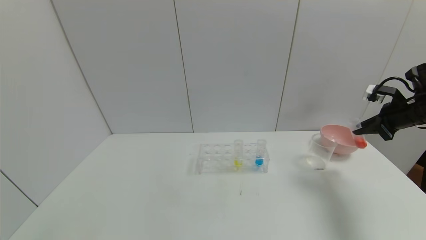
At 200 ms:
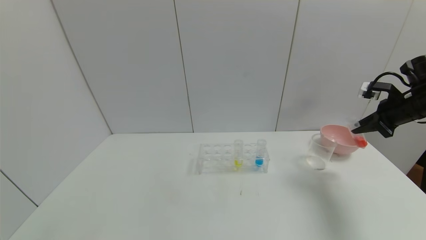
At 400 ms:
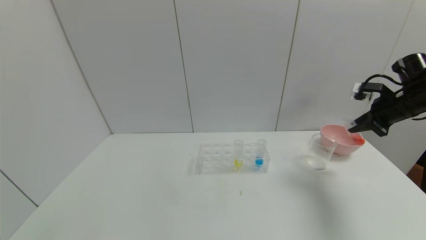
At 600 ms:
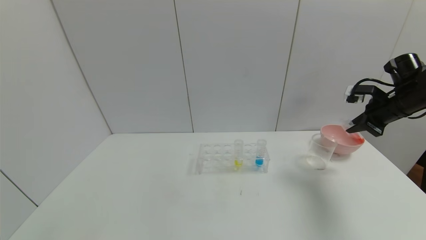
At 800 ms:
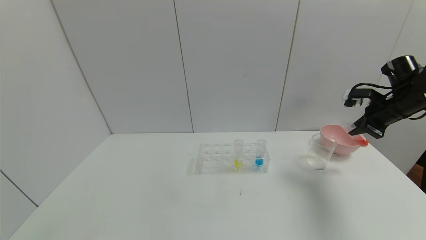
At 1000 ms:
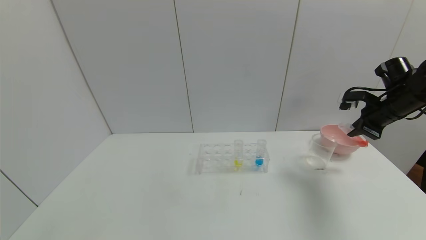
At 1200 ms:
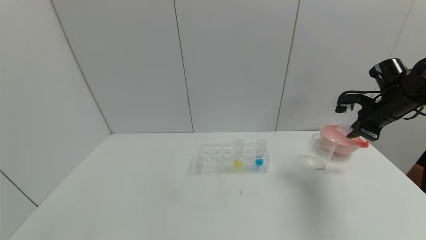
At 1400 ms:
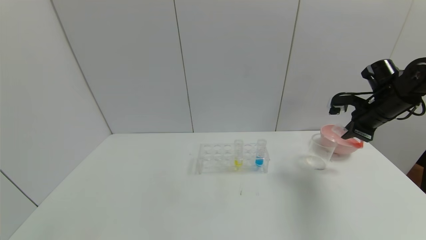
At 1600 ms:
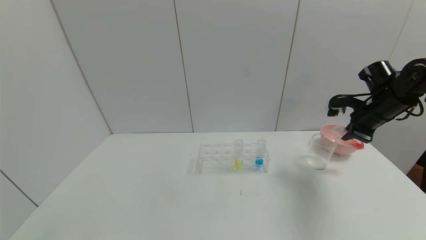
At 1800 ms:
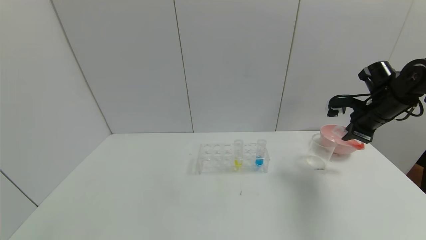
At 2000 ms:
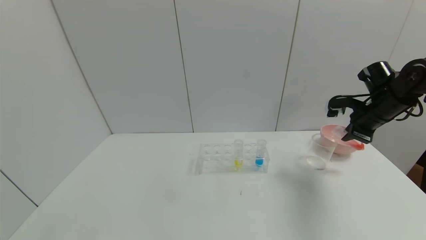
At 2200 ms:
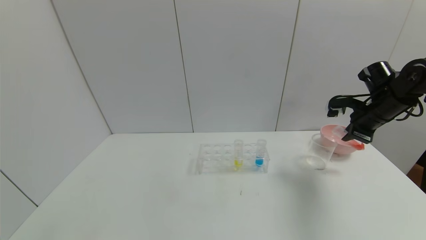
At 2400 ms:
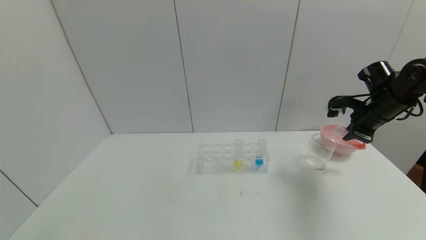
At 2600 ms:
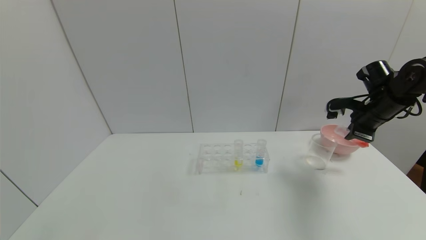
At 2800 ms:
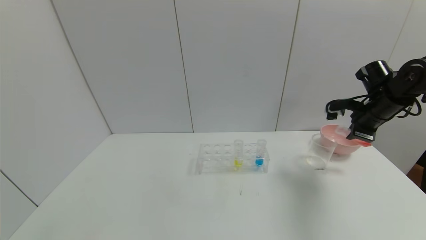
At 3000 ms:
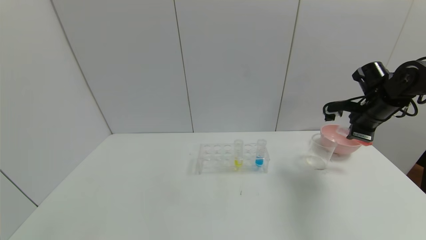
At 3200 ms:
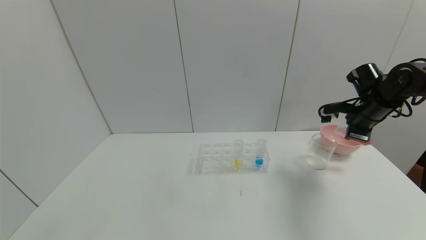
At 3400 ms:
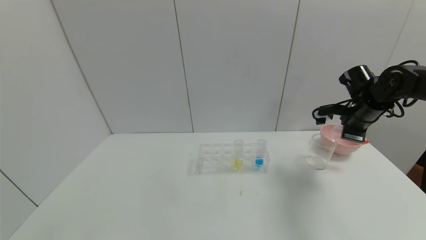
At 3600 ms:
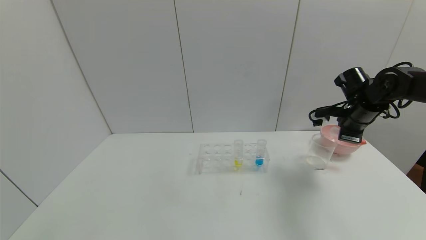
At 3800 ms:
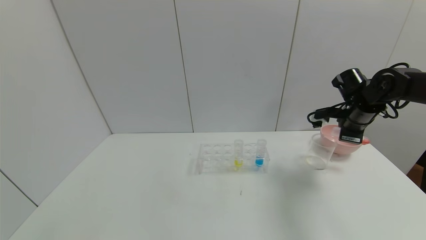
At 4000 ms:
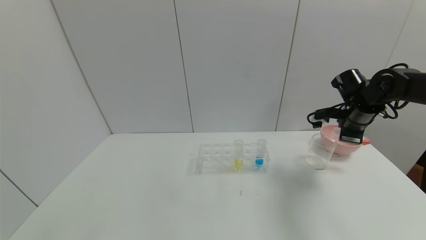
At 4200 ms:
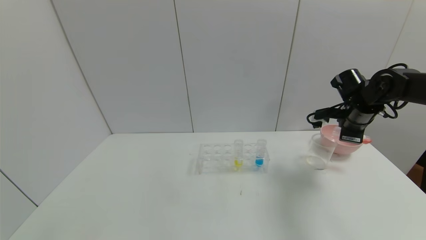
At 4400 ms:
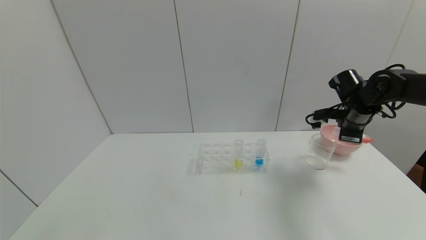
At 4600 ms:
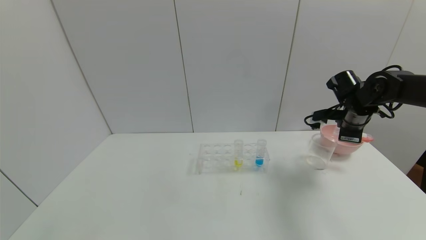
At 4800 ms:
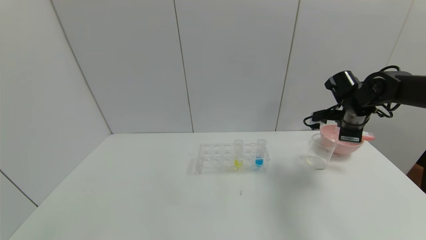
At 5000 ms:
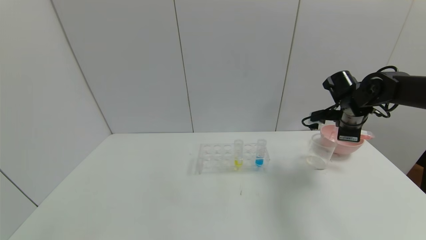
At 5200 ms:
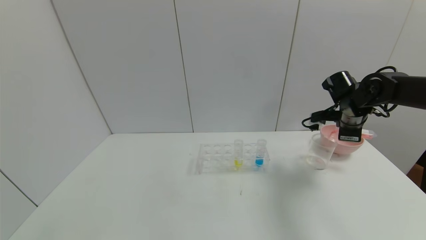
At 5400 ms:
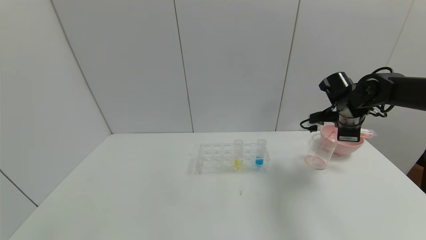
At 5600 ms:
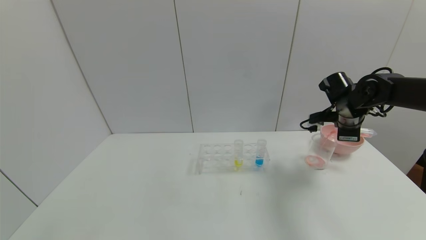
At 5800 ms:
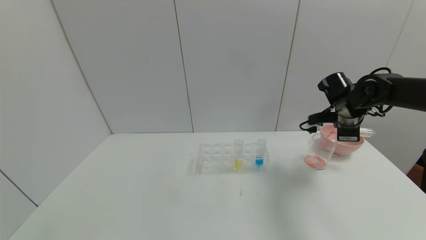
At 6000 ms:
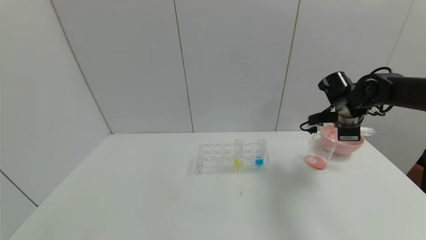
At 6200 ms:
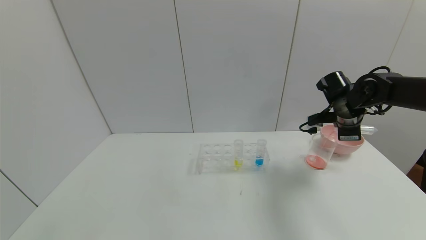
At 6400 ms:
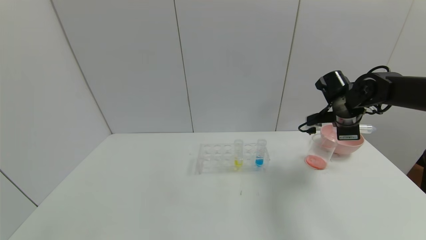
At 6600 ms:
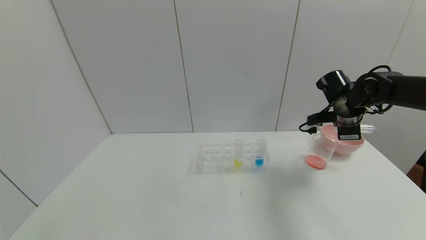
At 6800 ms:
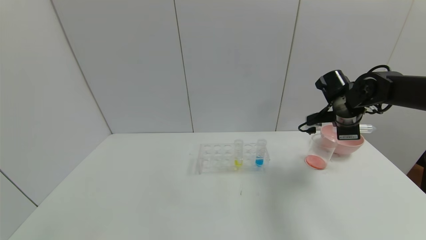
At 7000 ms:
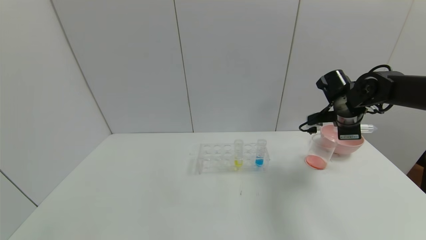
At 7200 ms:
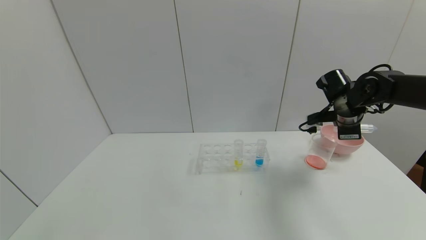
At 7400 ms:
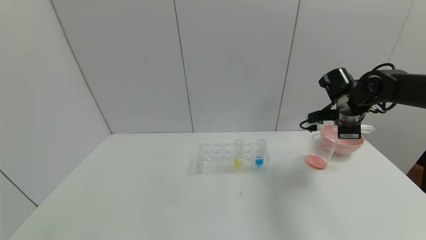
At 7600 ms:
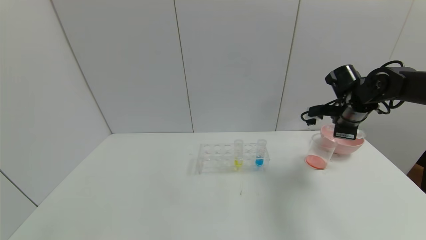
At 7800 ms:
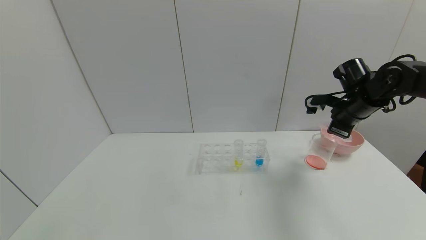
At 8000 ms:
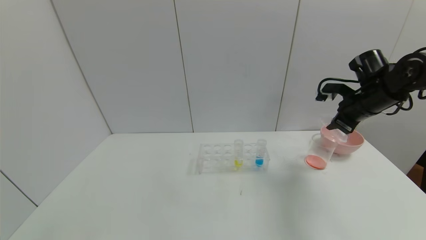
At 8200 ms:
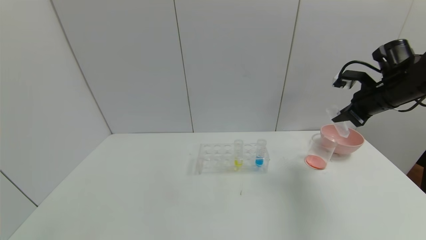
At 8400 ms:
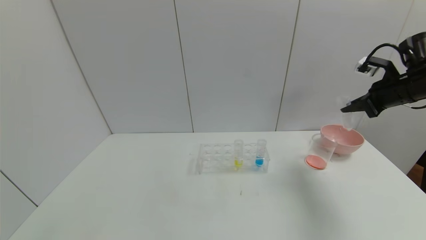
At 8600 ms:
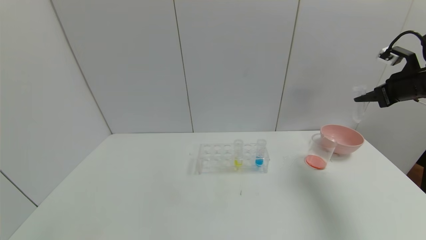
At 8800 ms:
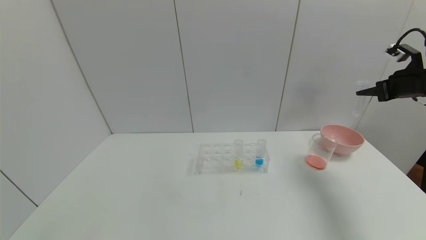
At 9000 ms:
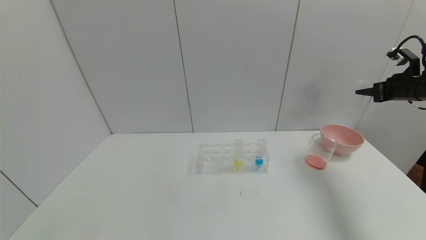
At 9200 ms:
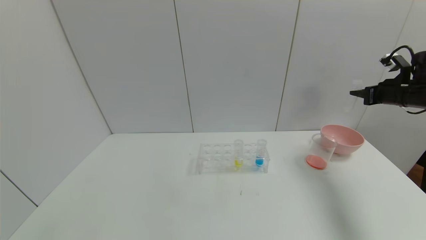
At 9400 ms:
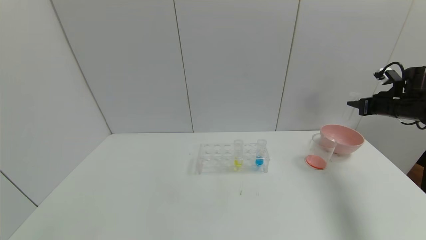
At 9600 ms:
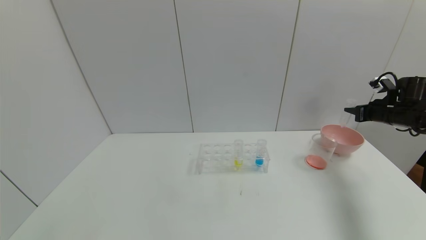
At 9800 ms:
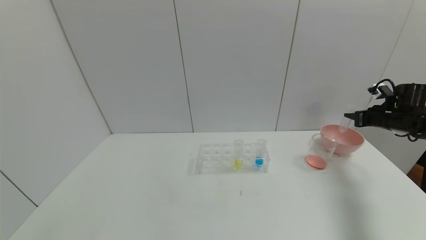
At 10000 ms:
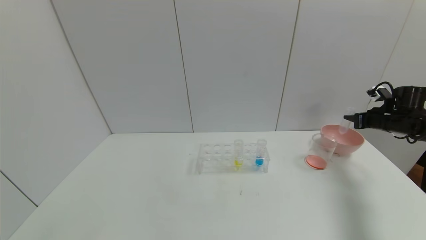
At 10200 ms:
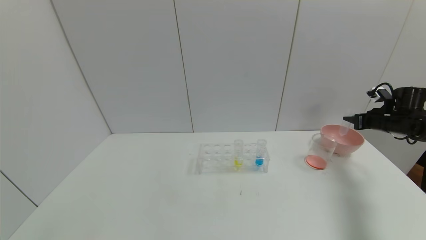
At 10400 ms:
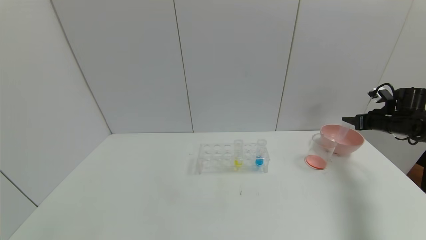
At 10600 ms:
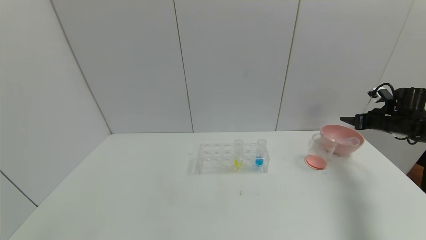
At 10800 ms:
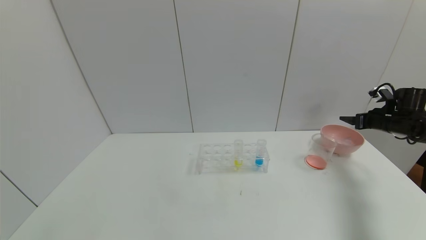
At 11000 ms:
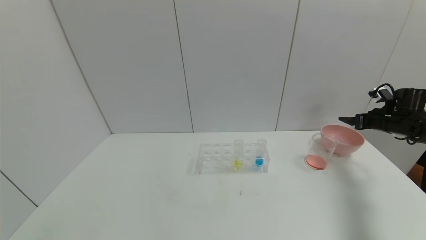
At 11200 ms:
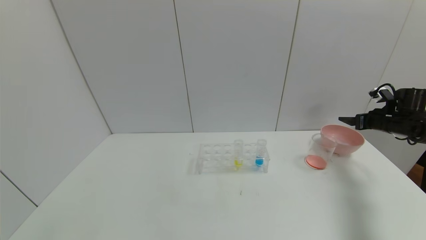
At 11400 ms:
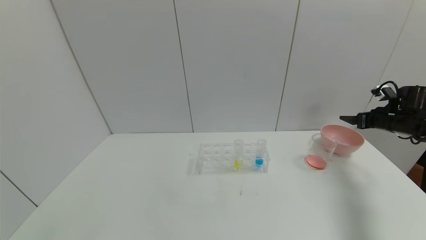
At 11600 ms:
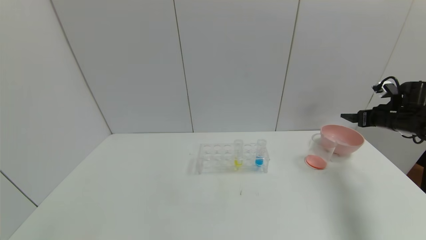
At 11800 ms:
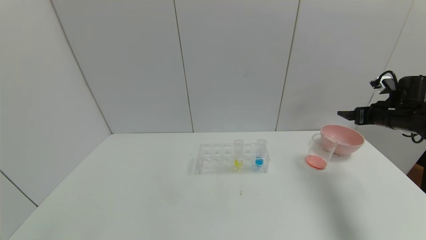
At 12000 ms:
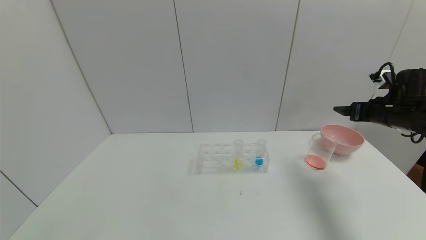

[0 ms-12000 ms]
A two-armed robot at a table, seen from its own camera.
Task of the whole recording: pick up the test tube with yellow pigment and the test tube with red pigment by grippers and pour them into the beaker.
Step, 0 ms to 7400 ms: Pour the red reagent into the graduated cylinder with the right gripper.
Step, 7600 ms to 11000 ms: Place the test tube into the bowl with the right gripper.
0 ms to 1600 ms: The right gripper shifts roughly 10 cm to the left.
1600 ms to 3000 ms: There are only small adjustments of the grippers.
3000 ms to 4400 ms: The grippers stay close to where they were, moving slightly.
4400 ms to 7600 ms: There are only small adjustments of the grippers.
7600 ms to 9000 ms: The right gripper goes some 15 cm to the right.
9000 ms to 10400 ms: The right gripper is displaced downward by some 10 cm, and opens its fingers.
10400 ms to 12000 ms: The right gripper is displaced to the left, backward and upward by approximately 15 cm, and opens up.

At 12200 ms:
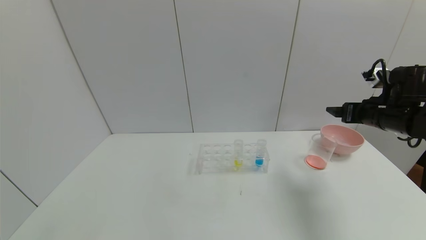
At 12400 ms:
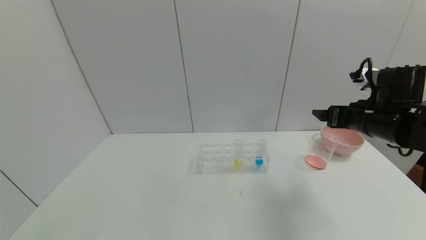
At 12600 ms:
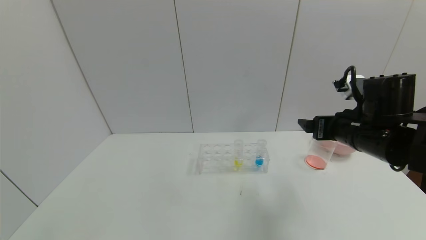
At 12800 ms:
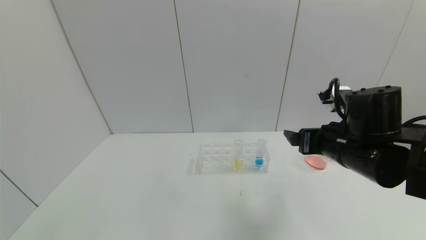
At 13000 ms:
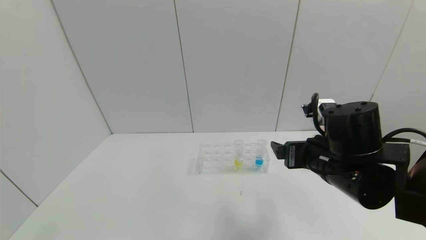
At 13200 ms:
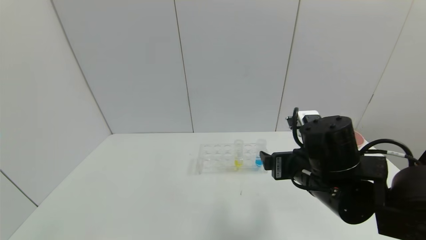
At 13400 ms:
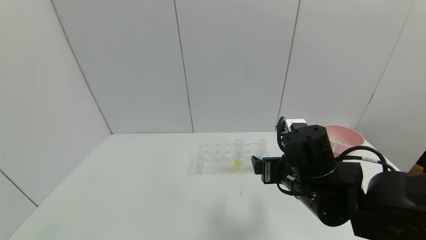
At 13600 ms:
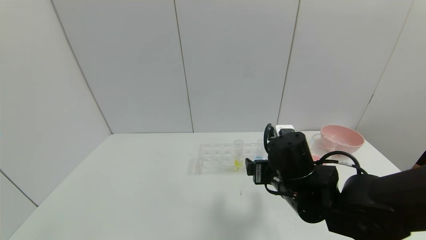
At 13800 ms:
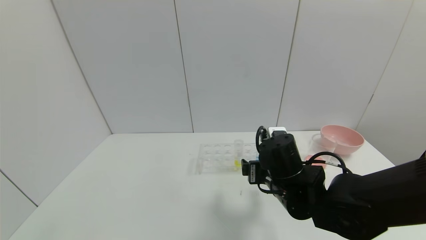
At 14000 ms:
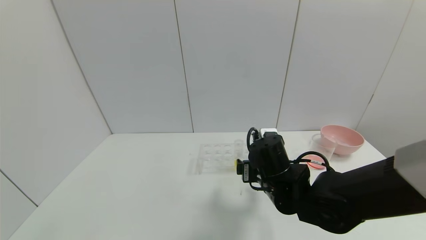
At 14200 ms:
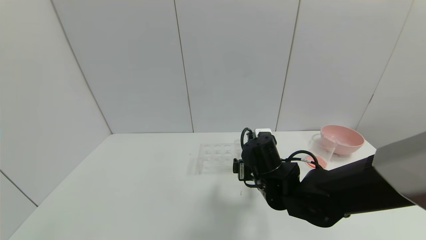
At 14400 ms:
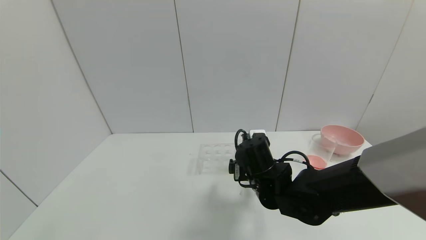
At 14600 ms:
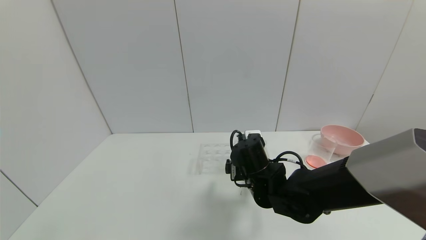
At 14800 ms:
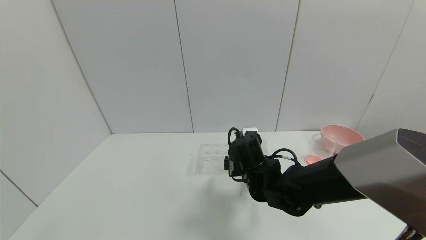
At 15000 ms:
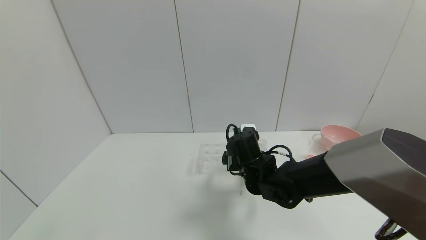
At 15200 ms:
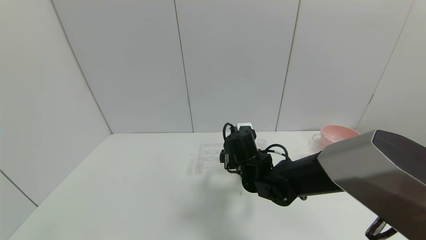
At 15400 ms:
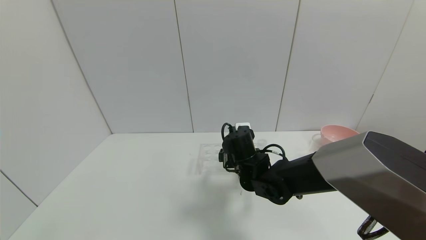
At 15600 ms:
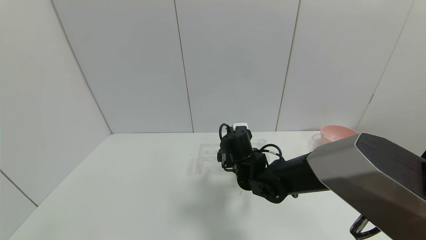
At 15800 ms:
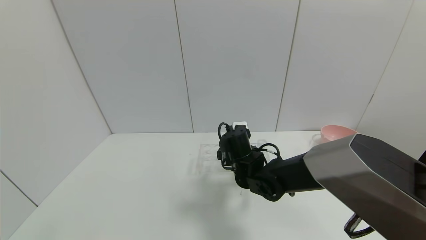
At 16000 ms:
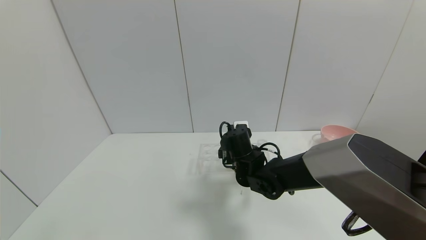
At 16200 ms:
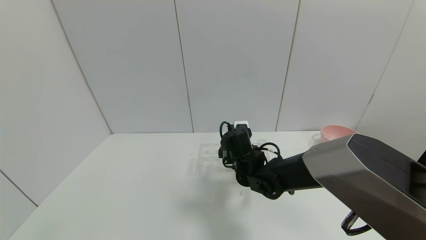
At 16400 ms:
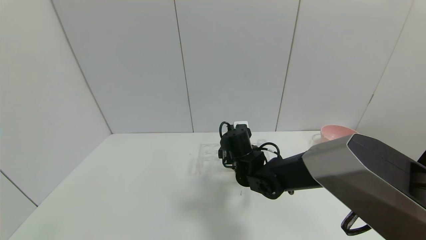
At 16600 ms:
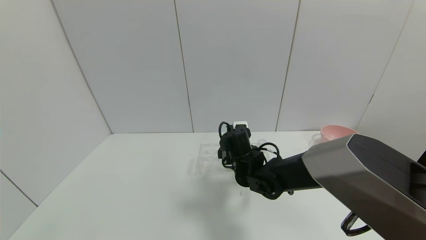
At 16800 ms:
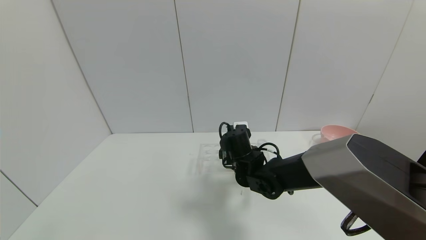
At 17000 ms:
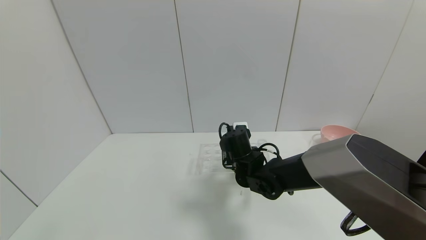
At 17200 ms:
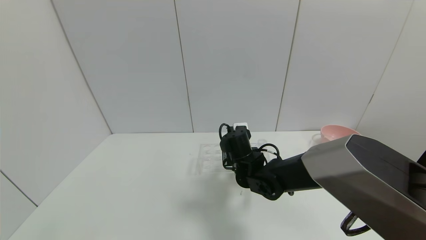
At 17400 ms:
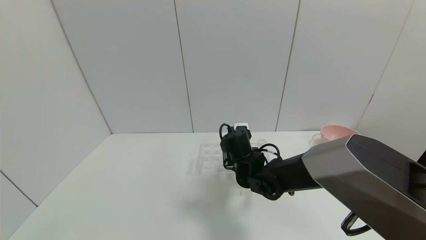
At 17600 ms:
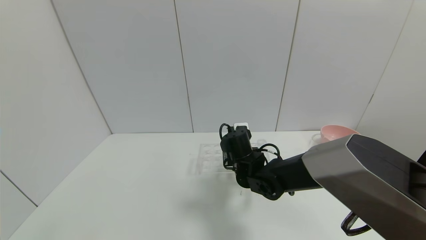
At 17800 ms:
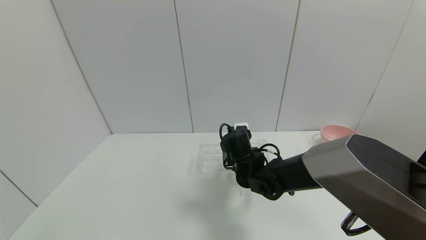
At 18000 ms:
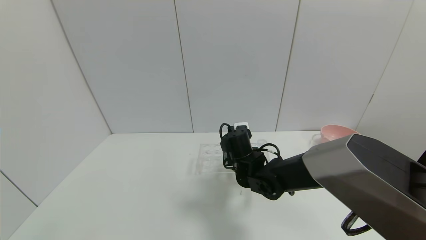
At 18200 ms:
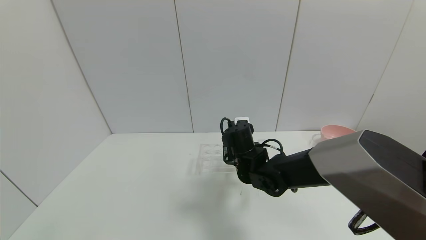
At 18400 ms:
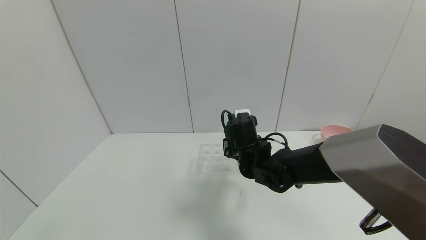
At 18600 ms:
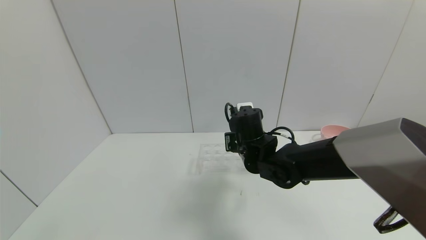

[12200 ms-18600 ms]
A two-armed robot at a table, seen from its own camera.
Task of the whole recording: pick up the test tube with yellow pigment and the test tube with red pigment by grippers and pour them into the beaker.
Step, 12200 ms to 17200 ms: Grasp the yellow reagent with the right gripper.
12200 ms to 13800 ms: The right gripper is displaced to the left and downward by about 25 cm.
13800 ms to 15400 ms: The right gripper goes about 10 cm forward and to the left.
15400 ms to 17000 ms: The right gripper closes its fingers.
17000 ms to 18600 ms: The right gripper moves upward, about 5 cm, and closes its fingers.
